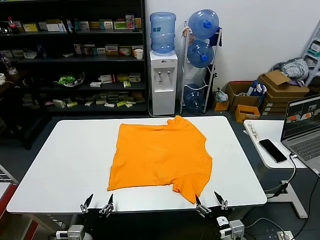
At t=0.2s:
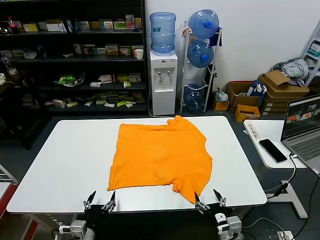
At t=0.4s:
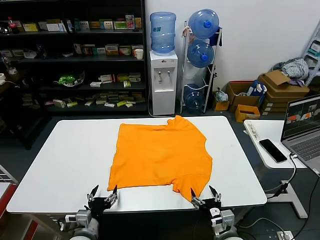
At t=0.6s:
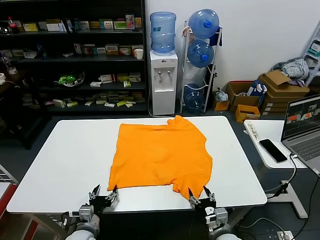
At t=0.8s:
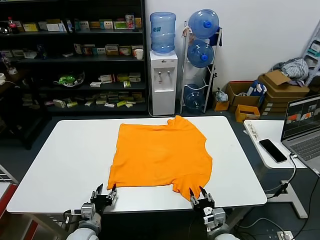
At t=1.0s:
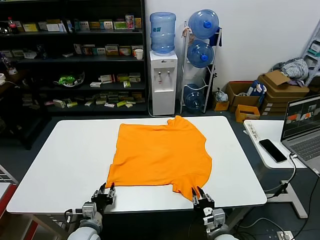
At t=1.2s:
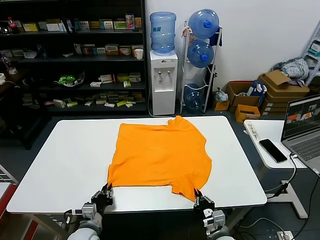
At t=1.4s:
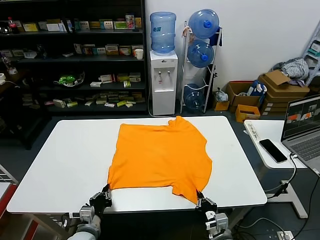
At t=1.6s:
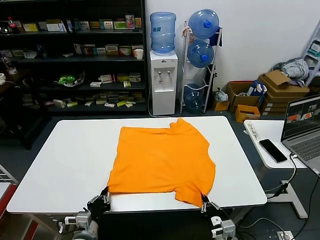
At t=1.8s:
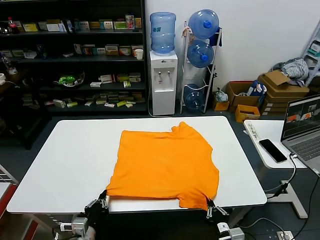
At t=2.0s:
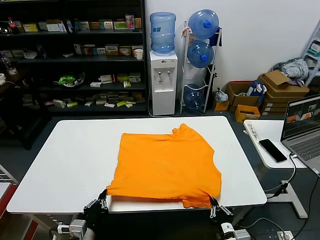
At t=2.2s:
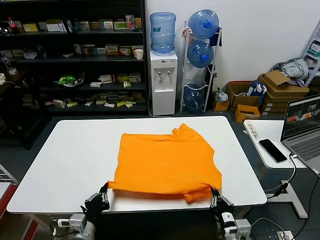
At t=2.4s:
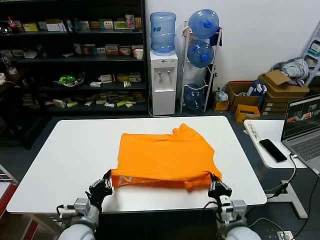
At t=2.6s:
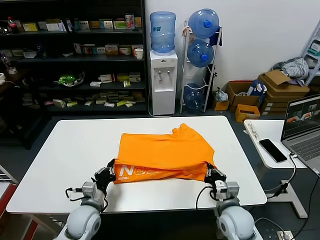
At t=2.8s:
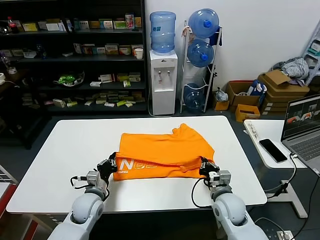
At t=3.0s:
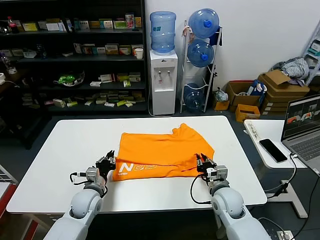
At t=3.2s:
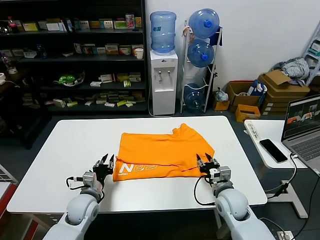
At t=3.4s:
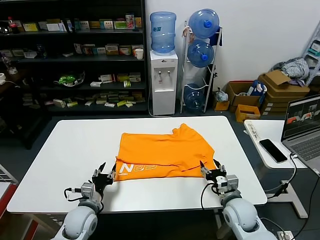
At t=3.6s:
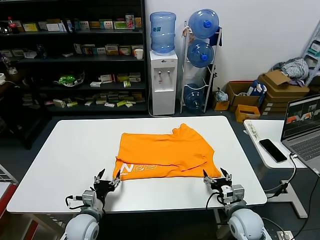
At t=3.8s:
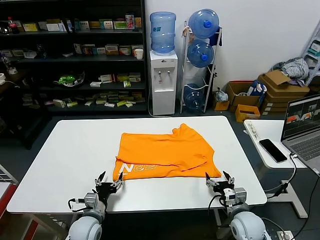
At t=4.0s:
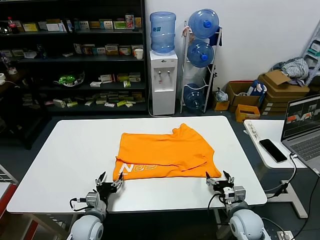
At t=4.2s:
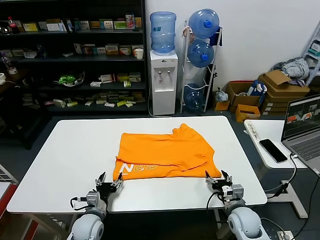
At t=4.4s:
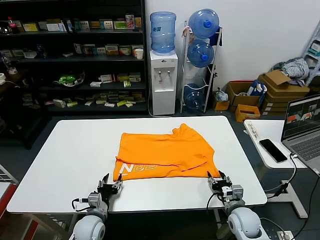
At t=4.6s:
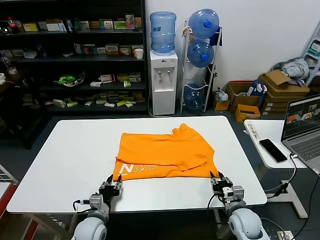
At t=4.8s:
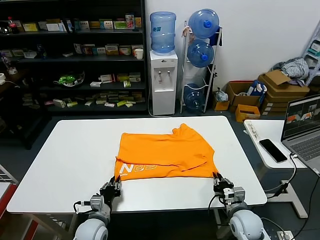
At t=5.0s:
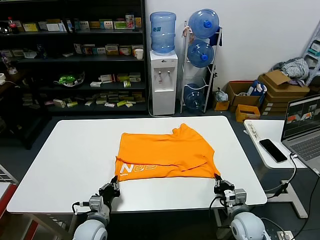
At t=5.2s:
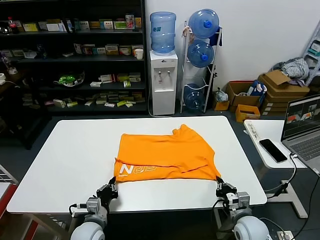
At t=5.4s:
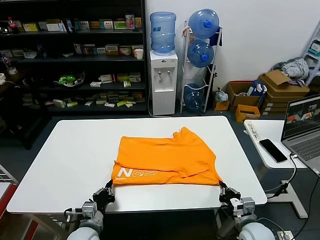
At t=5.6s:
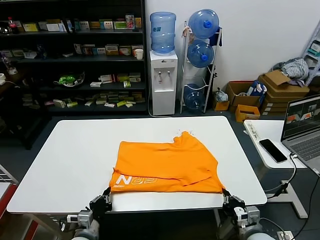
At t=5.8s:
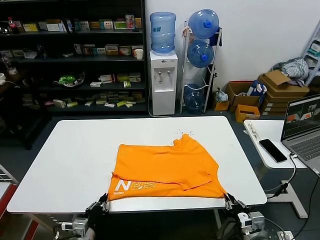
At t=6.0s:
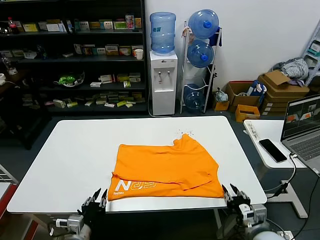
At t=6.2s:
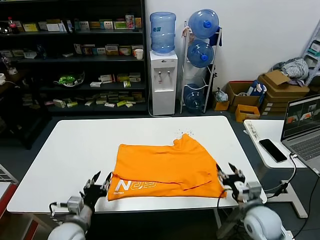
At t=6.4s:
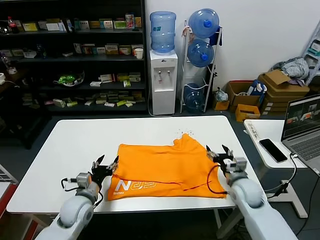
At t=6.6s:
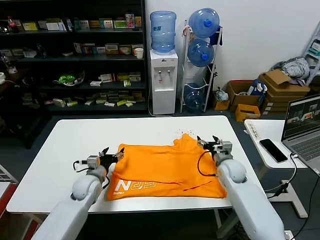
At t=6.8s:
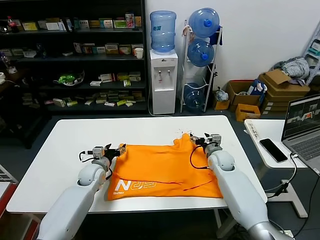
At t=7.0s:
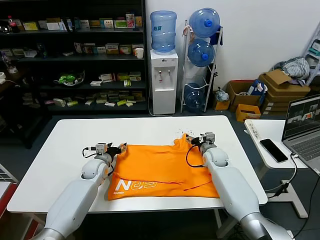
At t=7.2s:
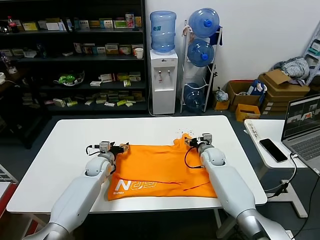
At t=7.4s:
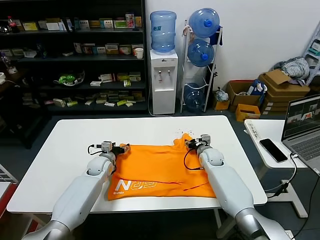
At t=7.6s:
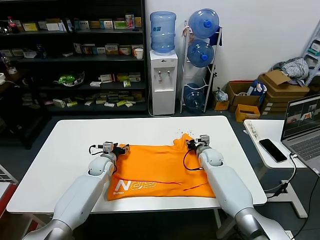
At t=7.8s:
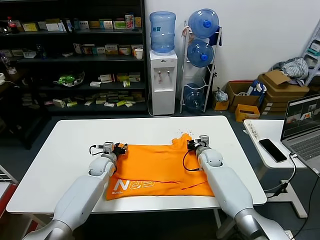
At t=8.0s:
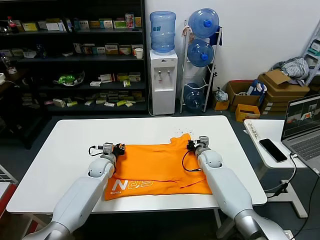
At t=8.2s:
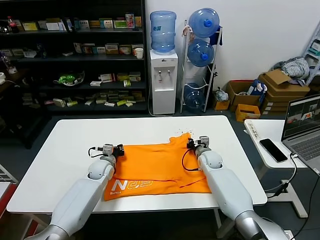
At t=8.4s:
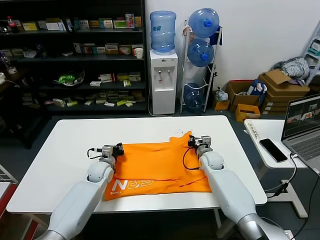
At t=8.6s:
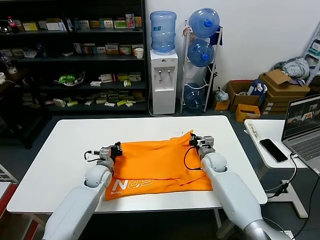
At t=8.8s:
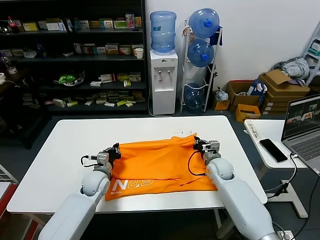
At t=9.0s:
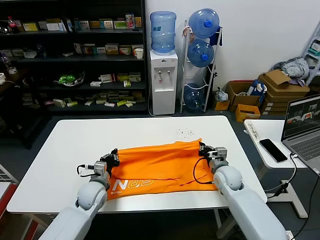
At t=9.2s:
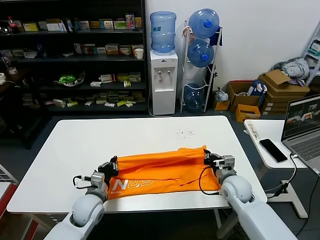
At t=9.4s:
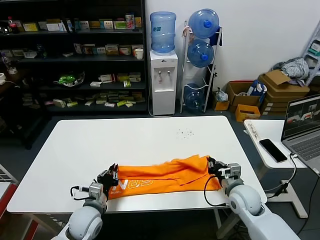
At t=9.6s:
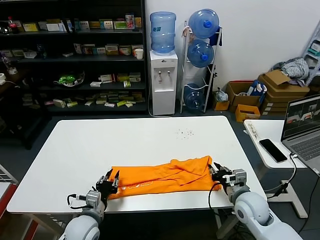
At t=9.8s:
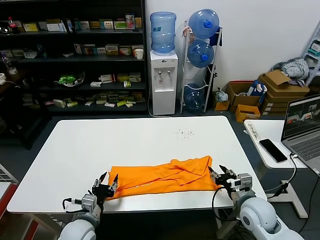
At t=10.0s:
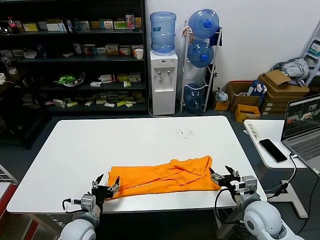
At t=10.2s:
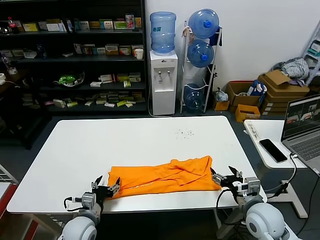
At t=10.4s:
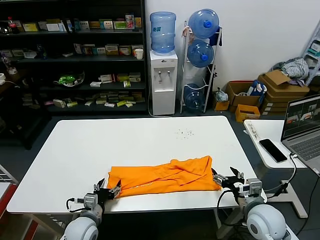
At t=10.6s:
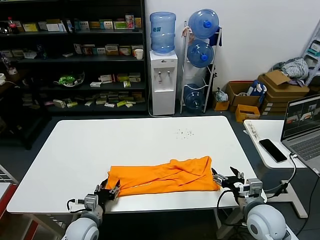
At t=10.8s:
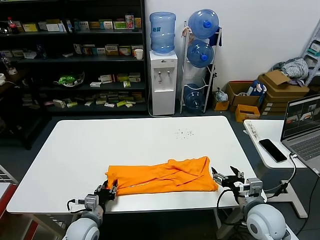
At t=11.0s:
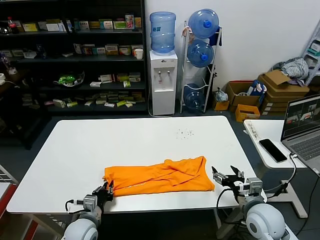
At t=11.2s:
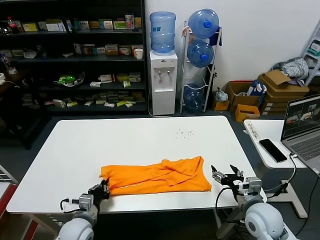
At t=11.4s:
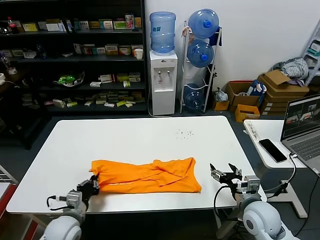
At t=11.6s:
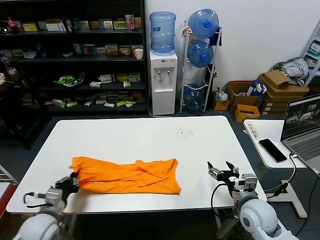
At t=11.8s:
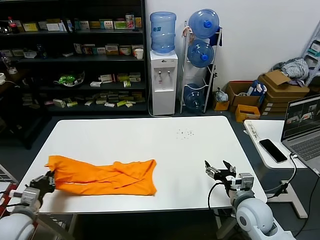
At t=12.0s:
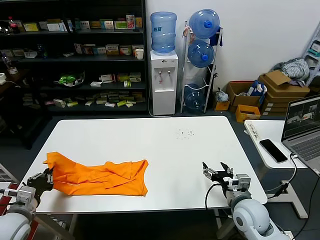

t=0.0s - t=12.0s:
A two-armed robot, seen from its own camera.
Task of the whole recording: fold and organize the clothes.
Step, t=0.0s - t=1.4s: use both grippers simultaneously to clamp the lower edge of the clothing fabric.
Step, t=1.6s - t=3.0s: use both grippers to drag the lower edge of the fabric forward and fold it over the upper edge.
Step, t=3.2s - t=5.8s: Drag the clothes downward with both gripper.
Step, t=6.0s - t=8.2s: use both grippers simultaneously to clamp the upper edge of the clothing fabric.
Step, t=8.4s - t=9.6s: use both grippers to drag the upper edge of the fabric backward and fold it over the lower edge.
Step, t=10.0s - t=11.0s: use the left gripper to clamp the left edge of the fabric.
t=1.6s - t=3.0s: Both grippers travel together forward, approximately 15 cm. The right gripper opens up.
t=3.0s - t=4.4s: The left gripper shifts approximately 10 cm backward and downward, and opens its fingers. The right gripper shifts about 10 cm downward and to the right, and opens and closes again.
t=4.4s - t=6.0s: The right gripper is displaced upward and backward by about 10 cm, and closes, then reopens. Meanwhile the left gripper travels backward and upward by approximately 10 cm, and closes its fingers.
t=6.0s - t=7.6s: The two grippers go approximately 30 cm forward. The left gripper opens its fingers. The right gripper opens and closes again.
t=7.6s - t=9.0s: Both grippers travel together backward, some 10 cm. The left gripper closes, while the right gripper closes.
t=9.0s - t=10.4s: The grippers both shift backward by some 15 cm. The right gripper opens its fingers; the left gripper opens up.
t=10.4s - t=12.0s: The left gripper goes roughly 20 cm to the left and upward, and closes.

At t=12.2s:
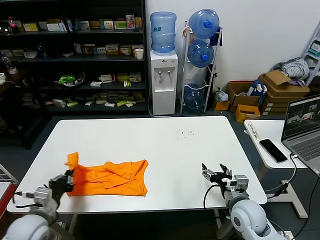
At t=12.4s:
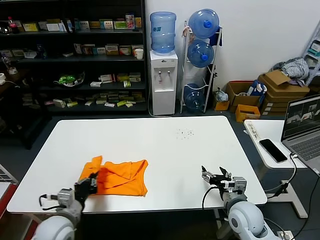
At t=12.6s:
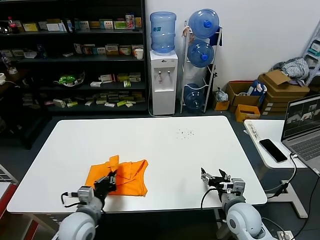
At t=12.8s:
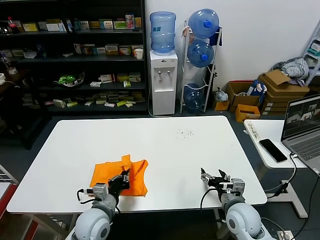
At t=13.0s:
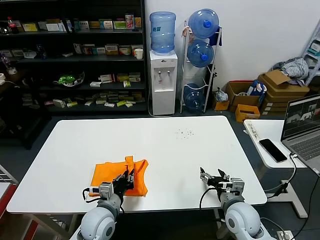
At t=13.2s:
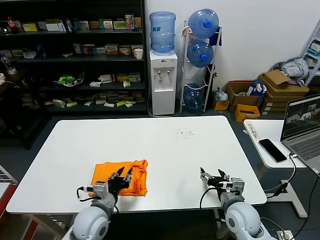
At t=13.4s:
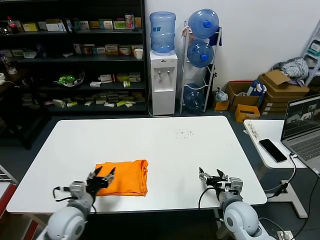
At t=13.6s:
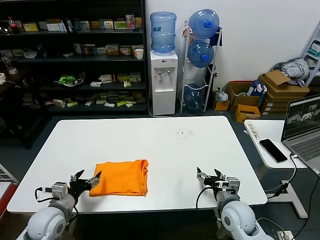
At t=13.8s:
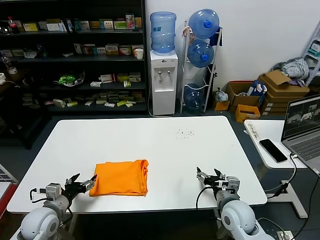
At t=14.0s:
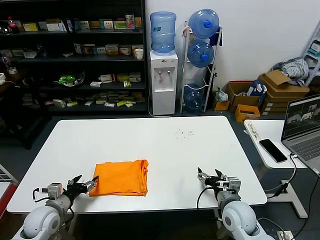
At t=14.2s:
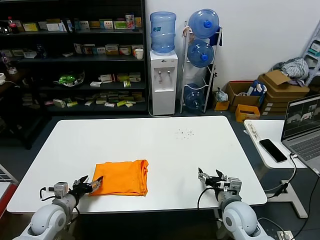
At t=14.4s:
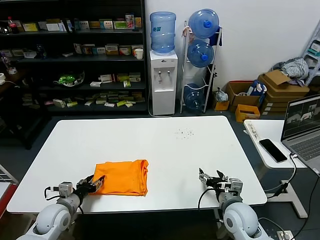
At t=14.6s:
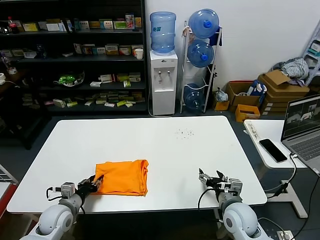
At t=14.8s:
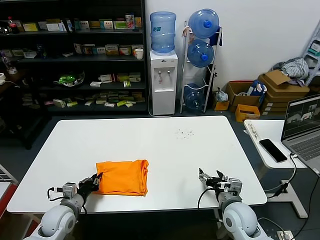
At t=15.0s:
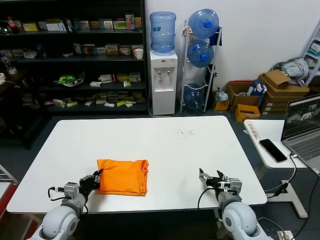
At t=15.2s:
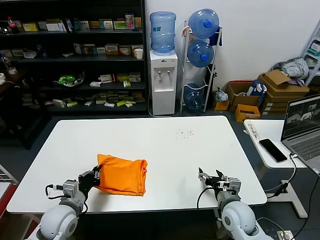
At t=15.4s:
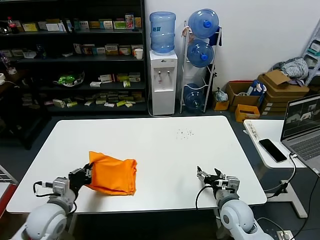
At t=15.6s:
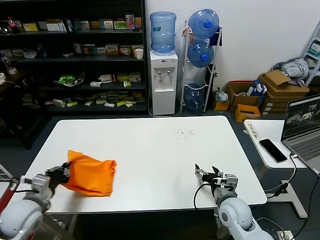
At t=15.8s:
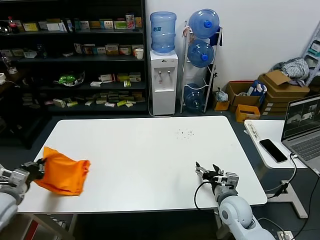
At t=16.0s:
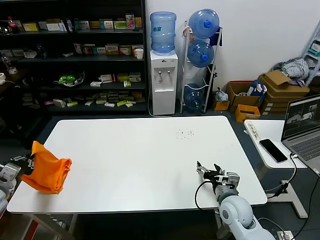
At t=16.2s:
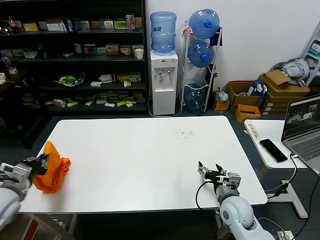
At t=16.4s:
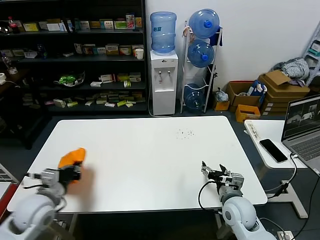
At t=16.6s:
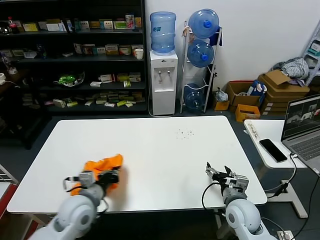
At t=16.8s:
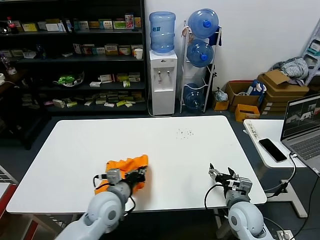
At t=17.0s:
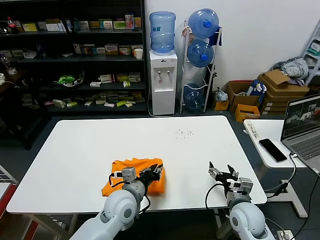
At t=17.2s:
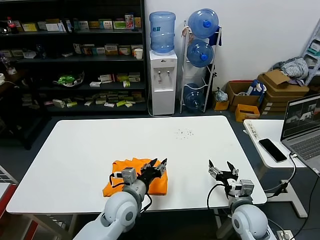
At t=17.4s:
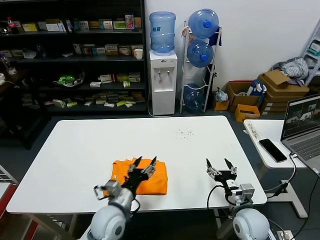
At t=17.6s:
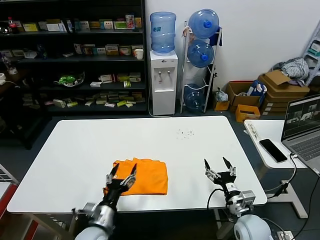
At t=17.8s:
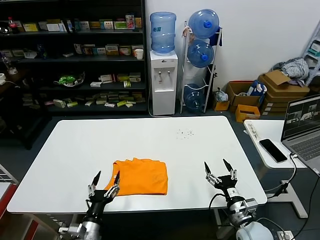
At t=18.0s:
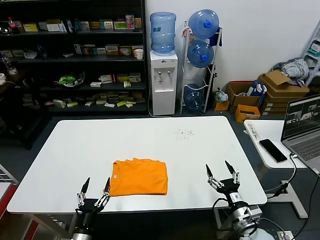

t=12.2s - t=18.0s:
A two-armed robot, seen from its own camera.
Task of the whole recording: fold and organize the clothes.
Step, t=13.4s - t=17.2s: Flip the folded clothes over with left gripper.
t=12.2s - t=13.6s: The left gripper goes to the right and returns, approximately 20 cm each way, and opens.
t=13.6s - t=15.0s: The left gripper closes.
t=15.0s - t=16.6s: The left gripper is displaced upward by roughly 10 cm, and moves some 15 cm to the left and comes back.
t=16.6s - t=18.0s: The right gripper travels backward by approximately 5 cm. Meanwhile the left gripper heads downward and backward, covering about 20 cm, moves approximately 15 cm to the right and comes back, and opens.
